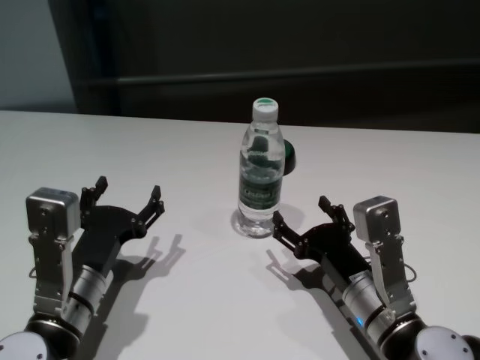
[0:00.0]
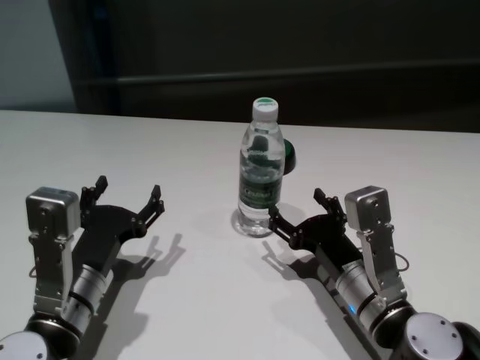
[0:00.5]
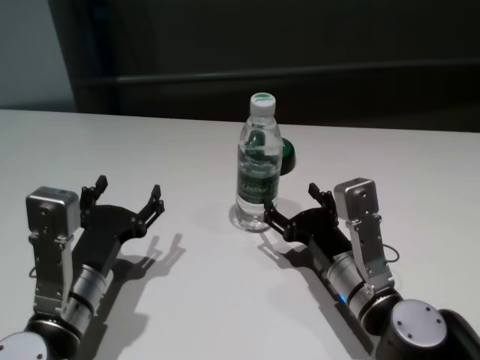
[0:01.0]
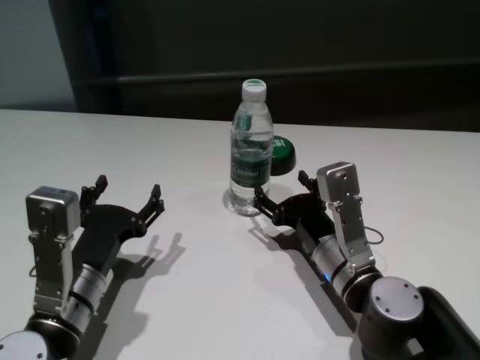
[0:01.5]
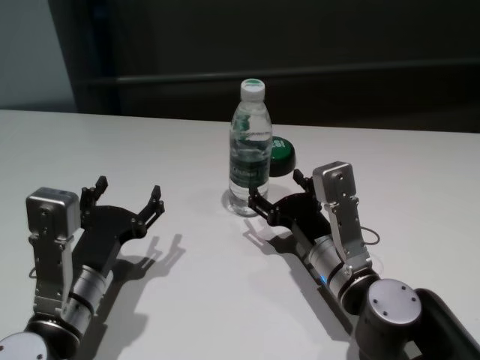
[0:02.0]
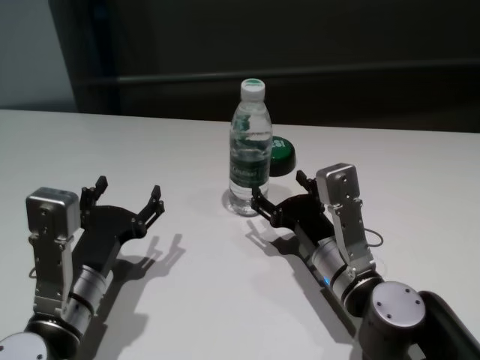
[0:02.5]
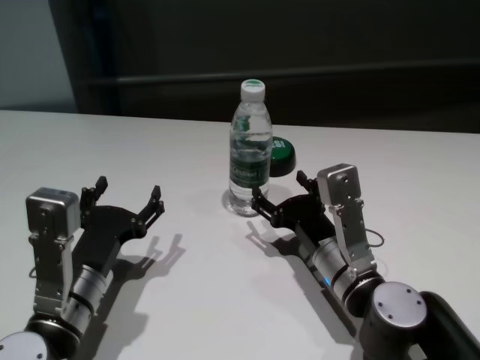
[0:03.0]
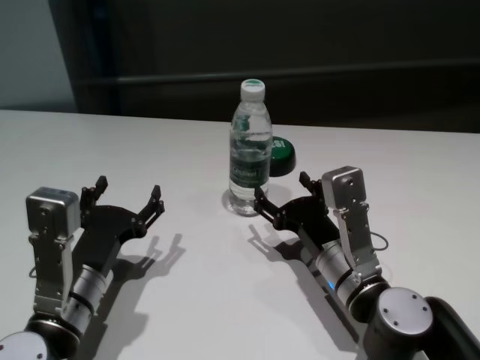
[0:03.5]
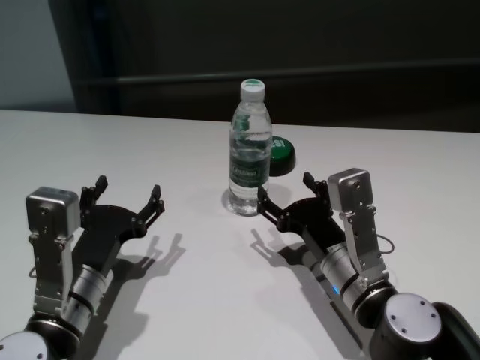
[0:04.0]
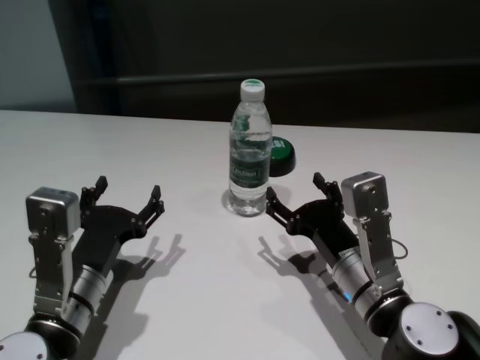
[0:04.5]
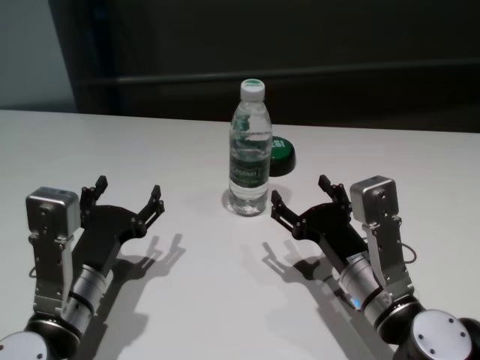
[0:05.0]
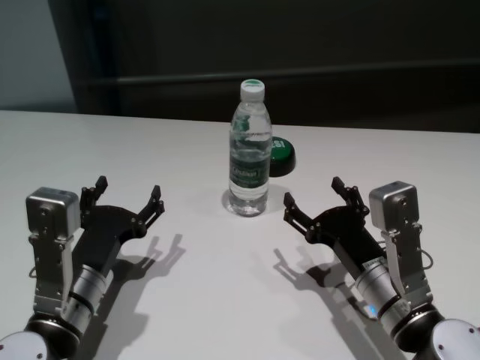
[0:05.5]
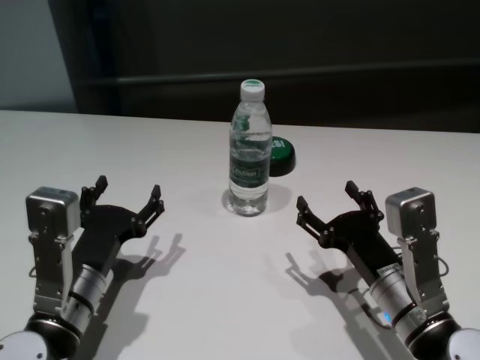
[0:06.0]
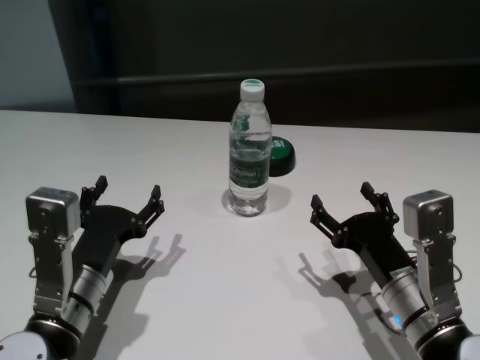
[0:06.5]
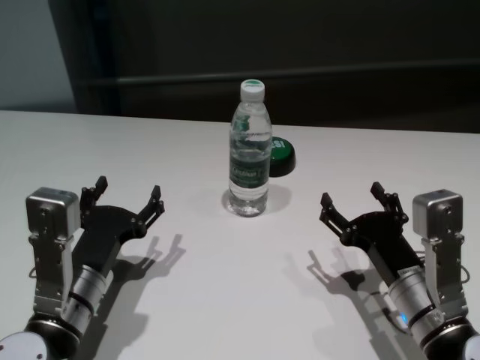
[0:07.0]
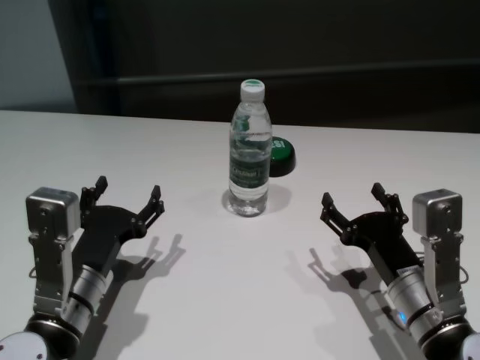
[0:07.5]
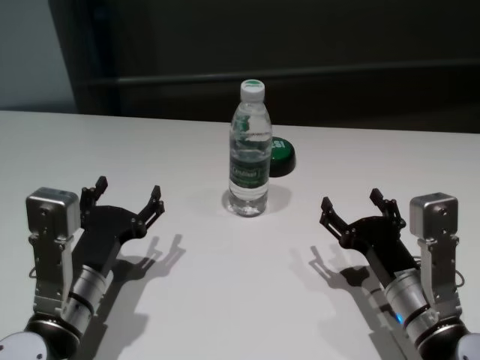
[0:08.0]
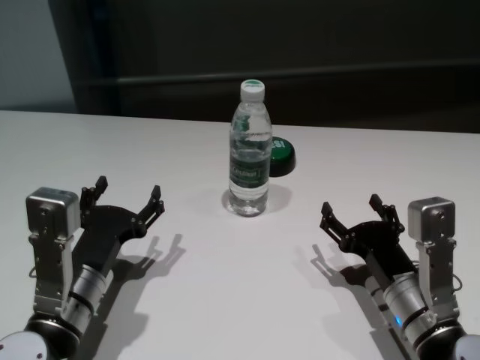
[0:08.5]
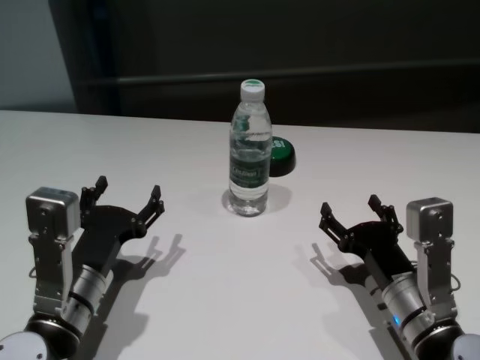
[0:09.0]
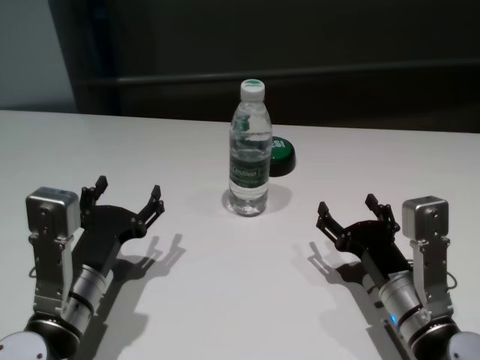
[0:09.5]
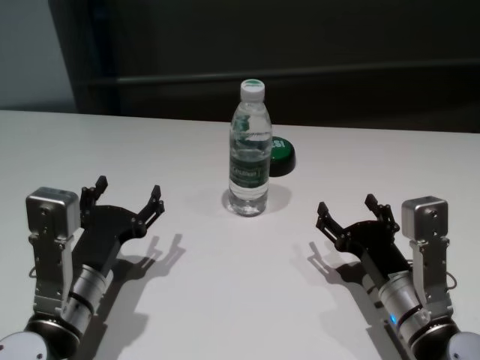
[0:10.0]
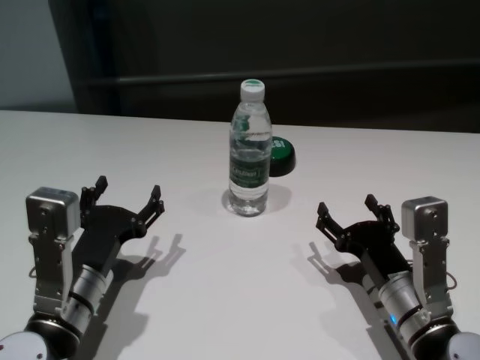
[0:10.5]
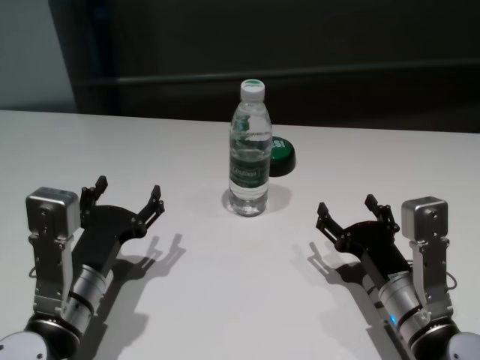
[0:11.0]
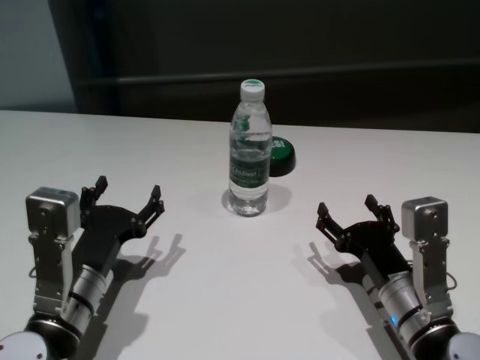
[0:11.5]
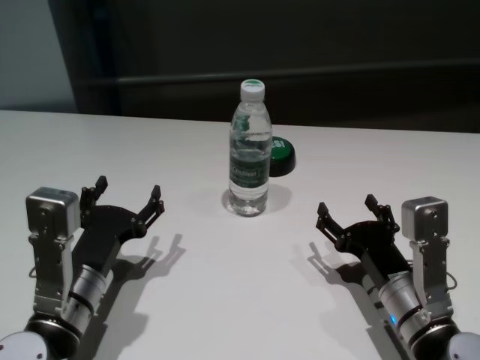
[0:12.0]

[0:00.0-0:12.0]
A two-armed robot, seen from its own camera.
Task of the whole recording: return to a safe position after touching an obstacle with your arm on the white table.
Step, 0:00.0 to 0:04.0: Touch the bottle with right gripper.

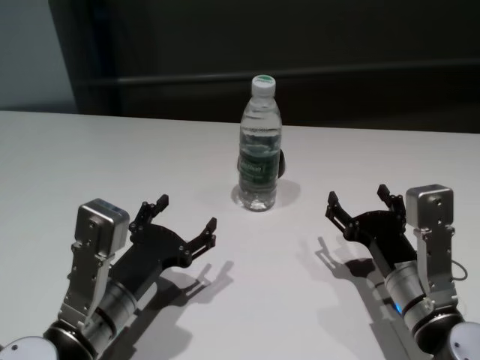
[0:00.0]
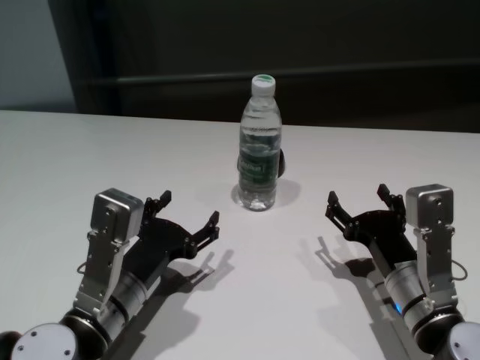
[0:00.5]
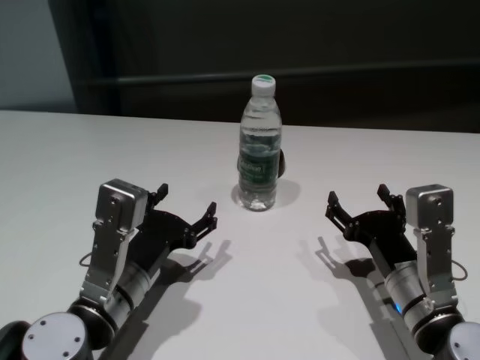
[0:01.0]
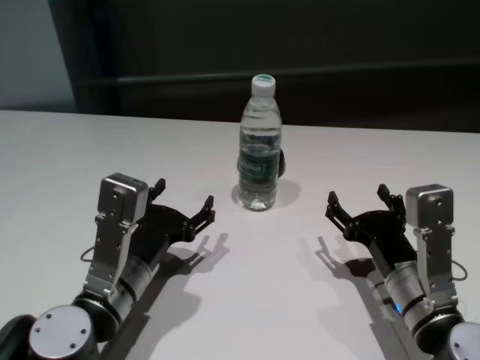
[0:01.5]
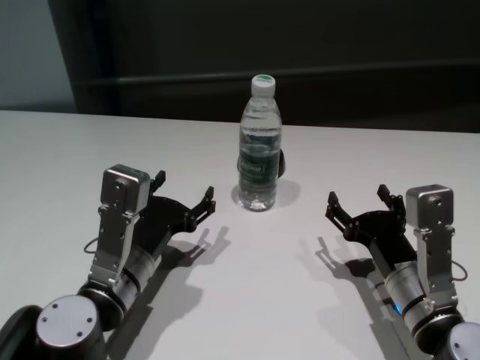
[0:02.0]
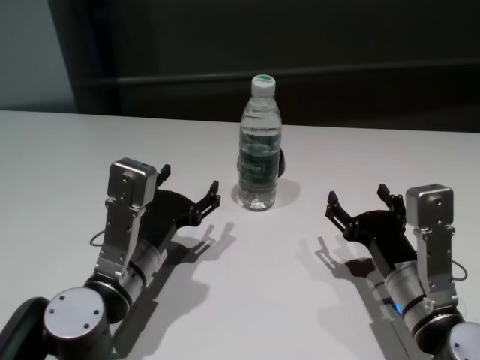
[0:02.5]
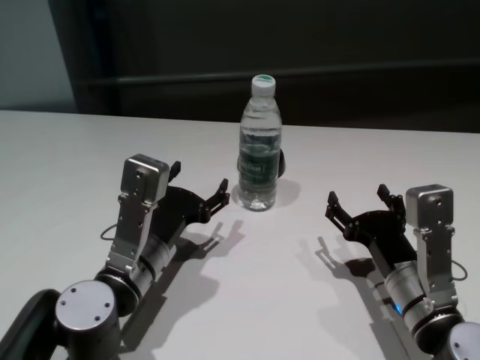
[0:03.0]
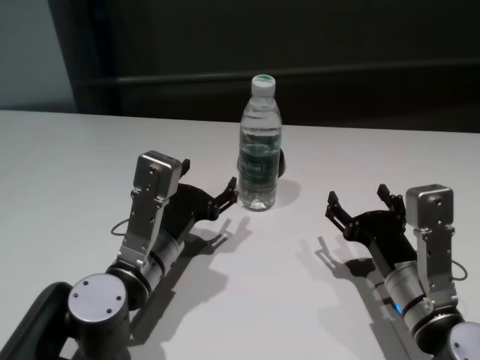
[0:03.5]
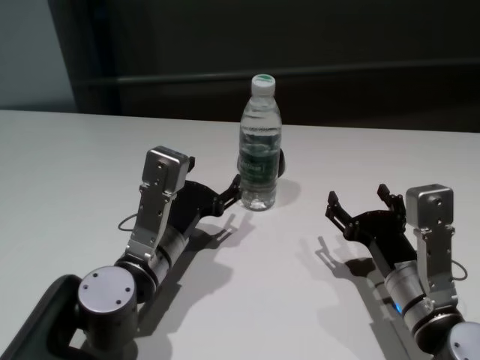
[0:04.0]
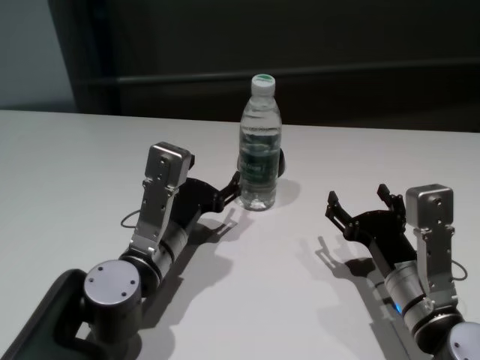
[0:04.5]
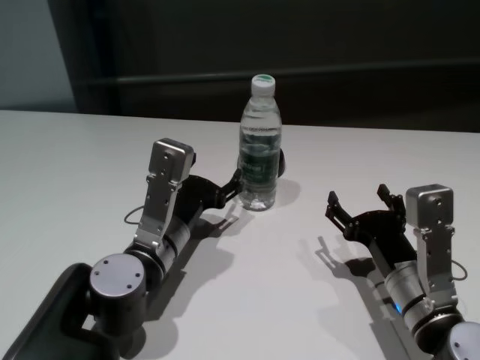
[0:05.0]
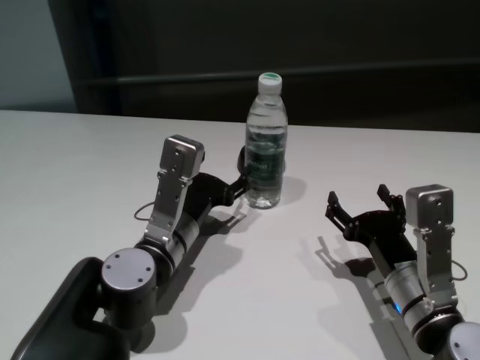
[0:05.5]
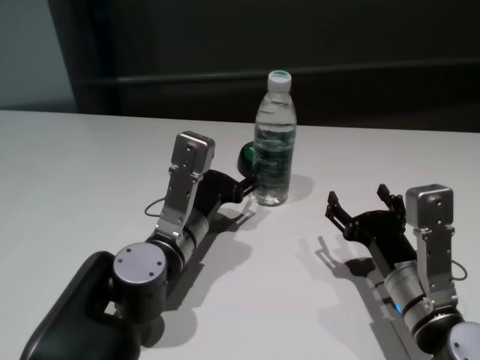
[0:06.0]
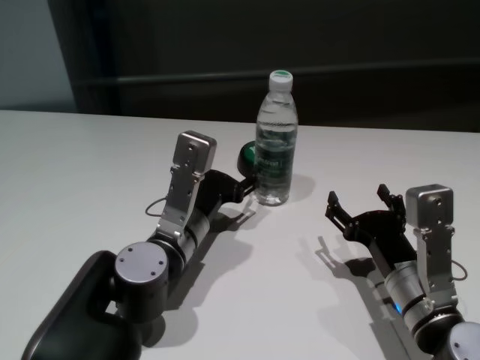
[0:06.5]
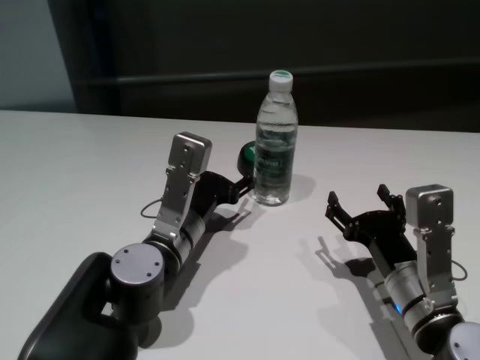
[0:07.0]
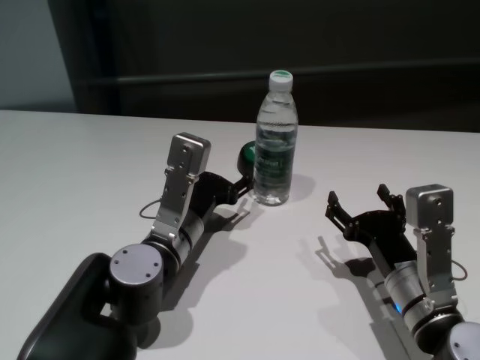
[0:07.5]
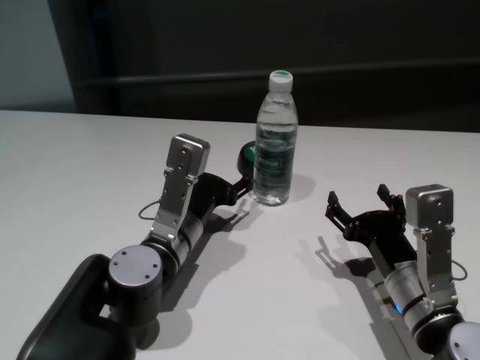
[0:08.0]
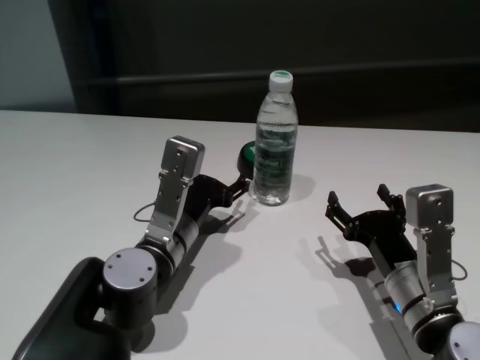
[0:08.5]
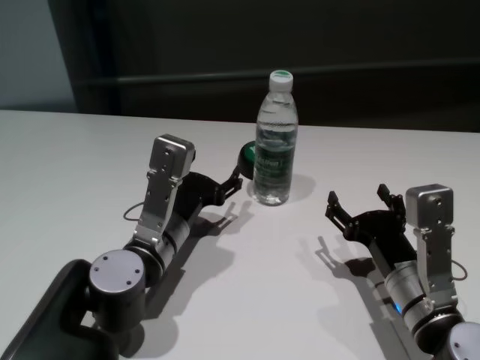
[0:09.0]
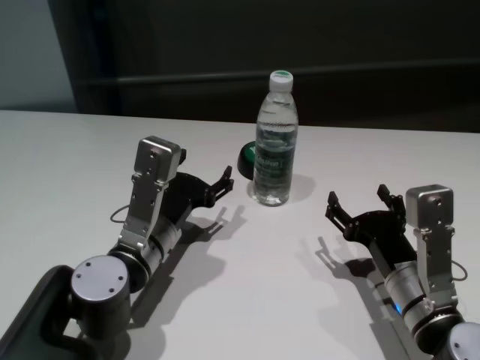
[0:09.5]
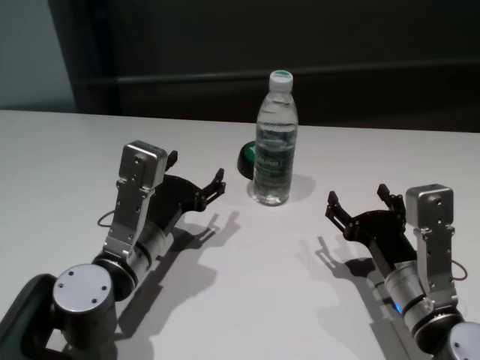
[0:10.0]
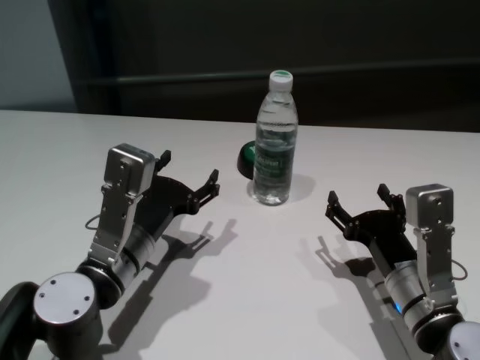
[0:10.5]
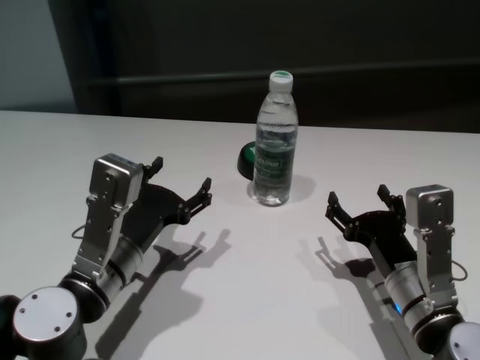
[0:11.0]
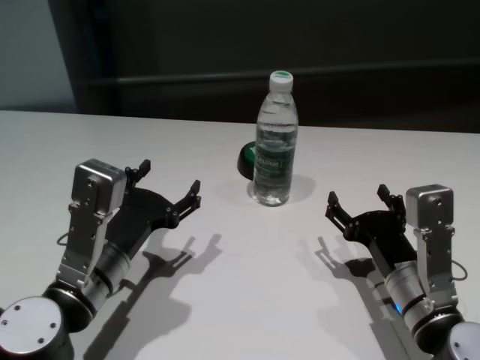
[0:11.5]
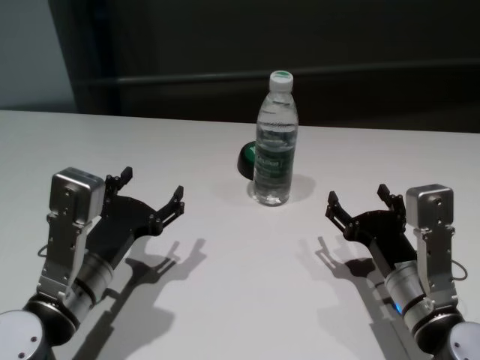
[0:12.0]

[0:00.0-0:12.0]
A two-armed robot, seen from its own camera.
Task of the whole recording: return to a safe position after touching an obstacle with your arm on the white table.
Step, 0:00.0 to 0:07.5: Touch the bottle with left gripper.

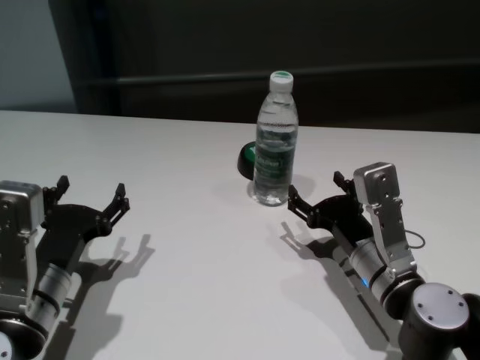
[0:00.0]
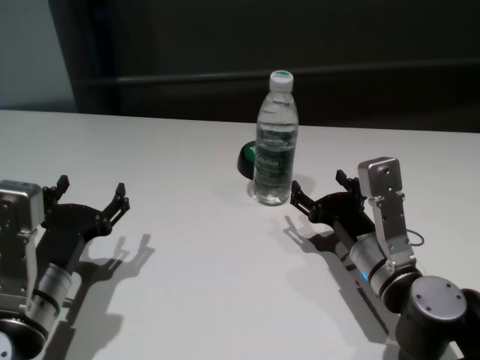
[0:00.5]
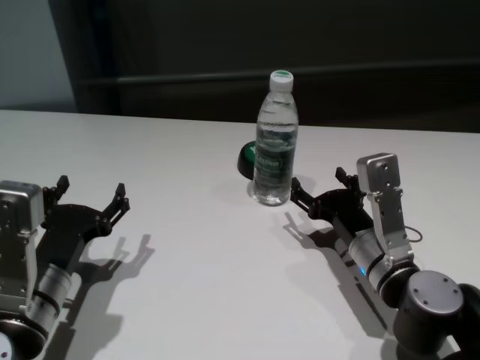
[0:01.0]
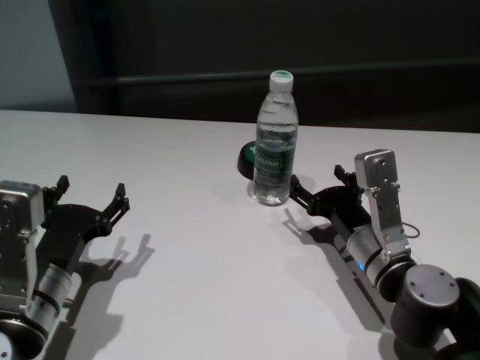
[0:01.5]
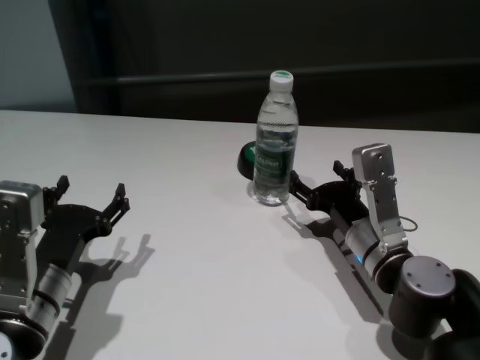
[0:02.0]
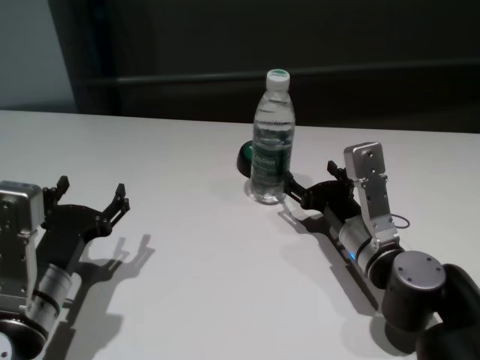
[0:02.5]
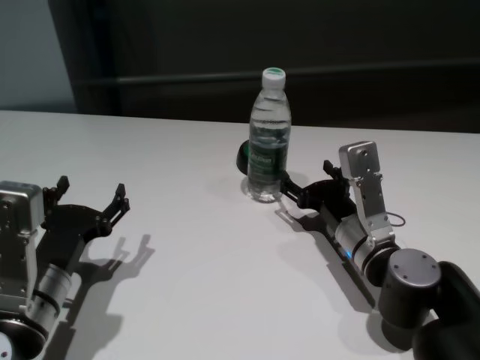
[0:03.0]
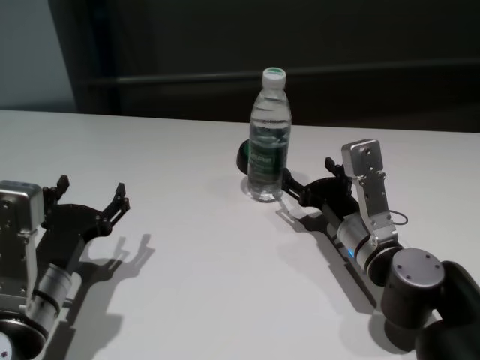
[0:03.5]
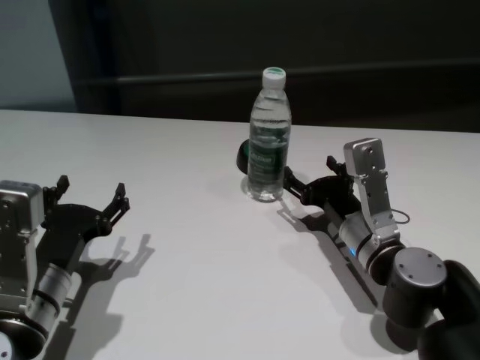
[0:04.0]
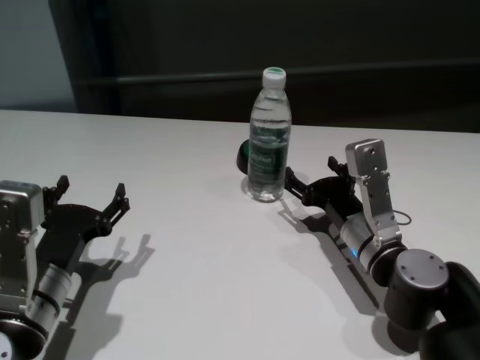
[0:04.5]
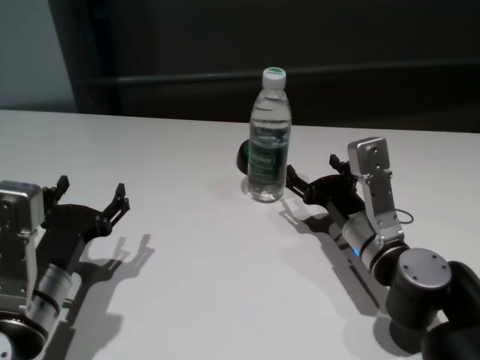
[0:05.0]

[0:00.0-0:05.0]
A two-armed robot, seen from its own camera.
Task of the whole recording: return to a safe position after touching an obstacle with your arm on the white table.
Step, 0:00.0 to 0:04.0: Touch the bottle with right gripper.
